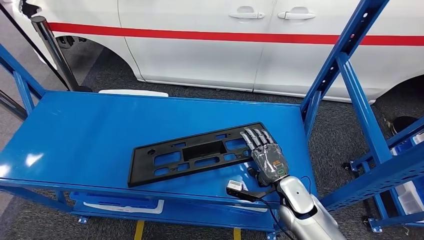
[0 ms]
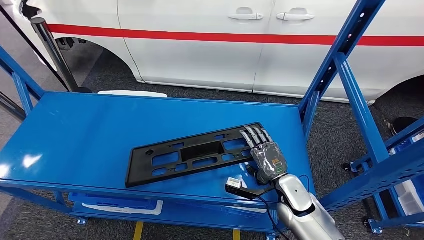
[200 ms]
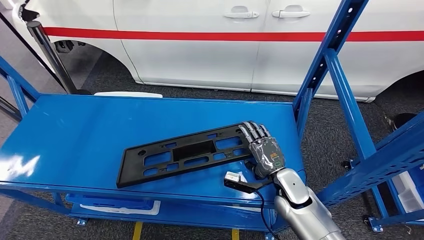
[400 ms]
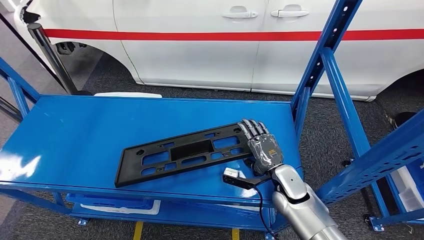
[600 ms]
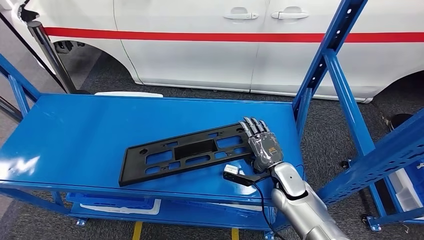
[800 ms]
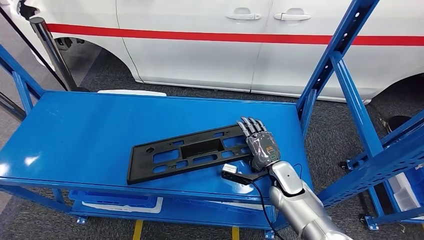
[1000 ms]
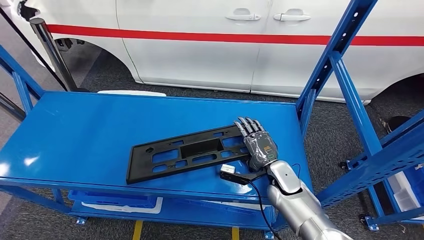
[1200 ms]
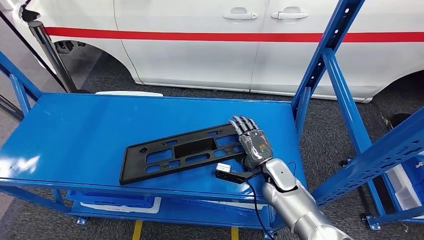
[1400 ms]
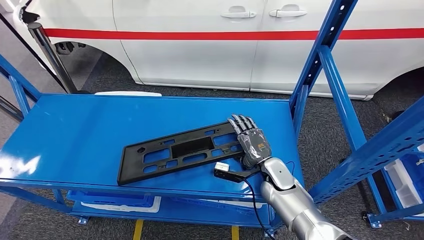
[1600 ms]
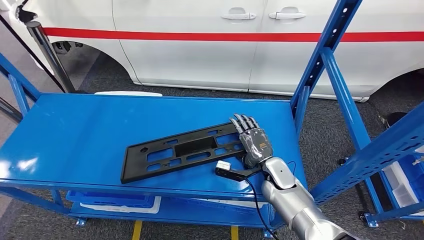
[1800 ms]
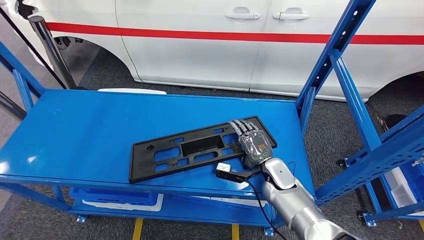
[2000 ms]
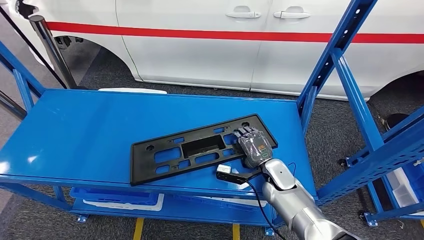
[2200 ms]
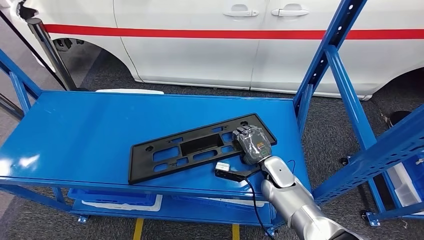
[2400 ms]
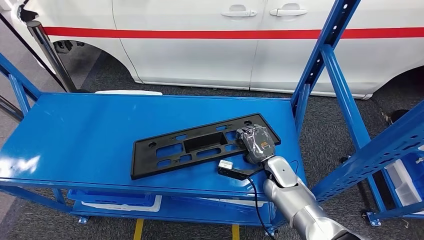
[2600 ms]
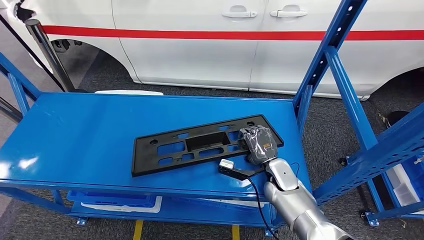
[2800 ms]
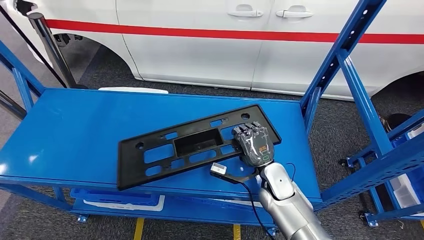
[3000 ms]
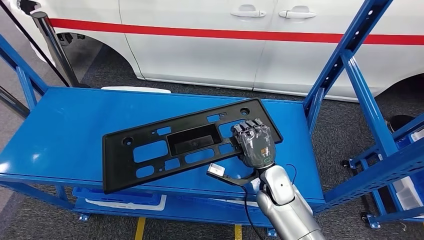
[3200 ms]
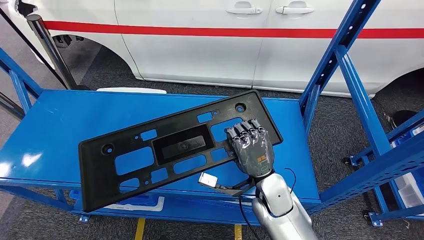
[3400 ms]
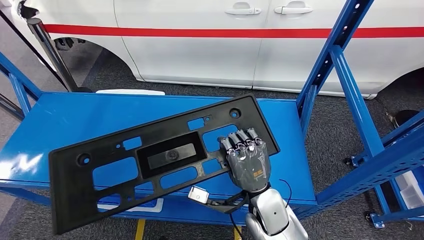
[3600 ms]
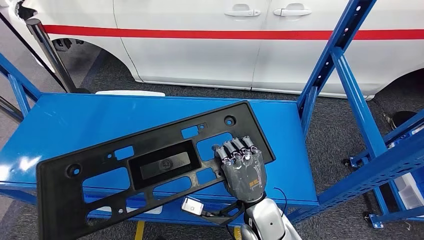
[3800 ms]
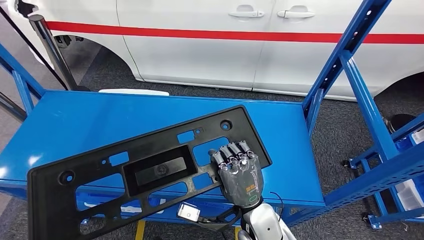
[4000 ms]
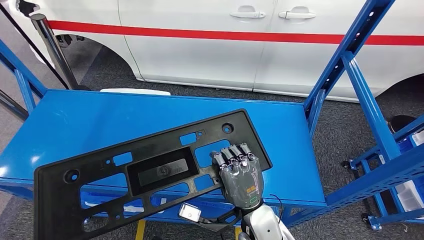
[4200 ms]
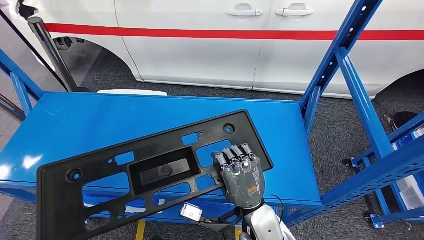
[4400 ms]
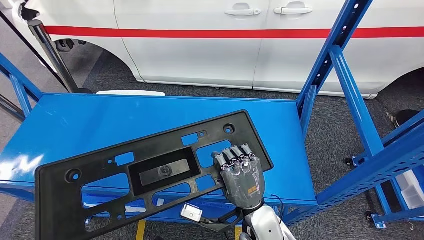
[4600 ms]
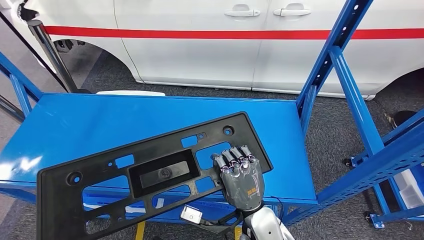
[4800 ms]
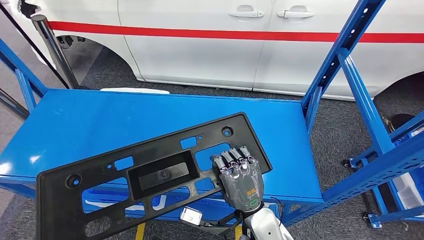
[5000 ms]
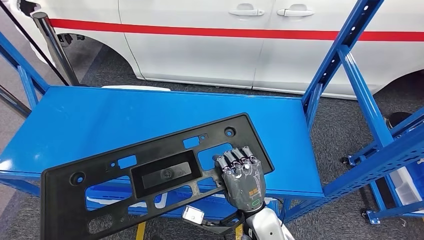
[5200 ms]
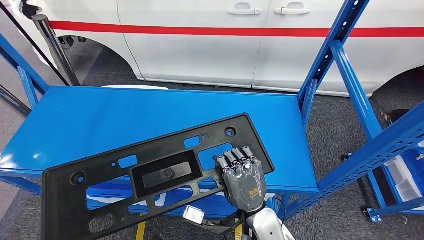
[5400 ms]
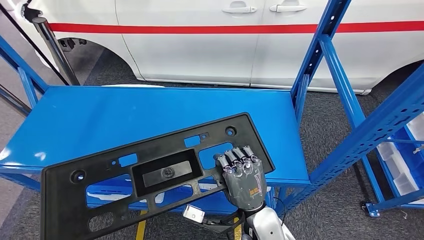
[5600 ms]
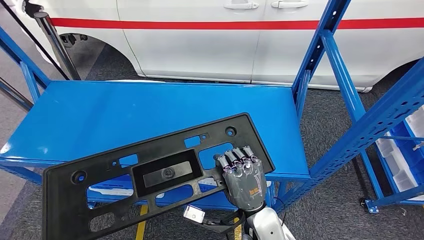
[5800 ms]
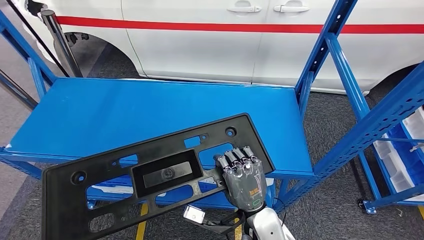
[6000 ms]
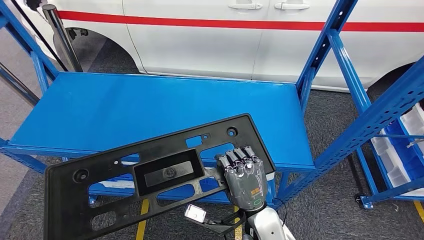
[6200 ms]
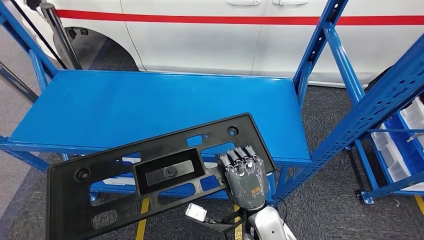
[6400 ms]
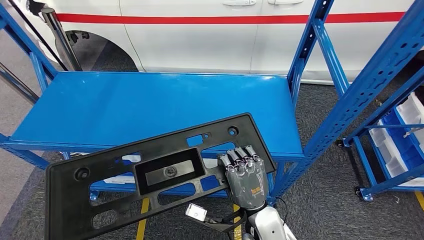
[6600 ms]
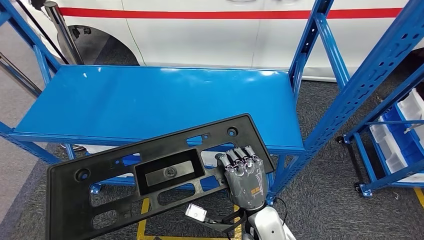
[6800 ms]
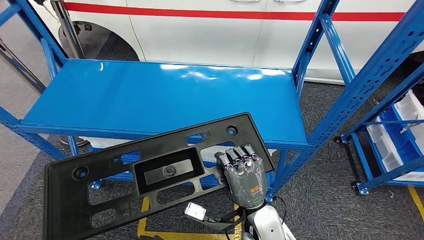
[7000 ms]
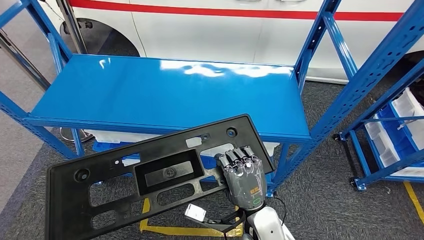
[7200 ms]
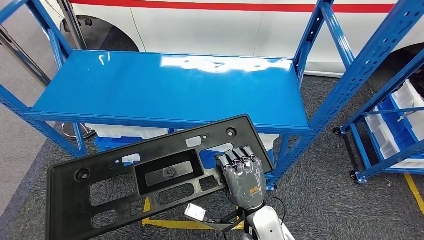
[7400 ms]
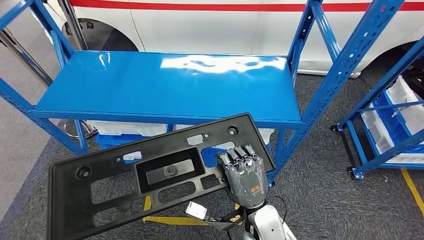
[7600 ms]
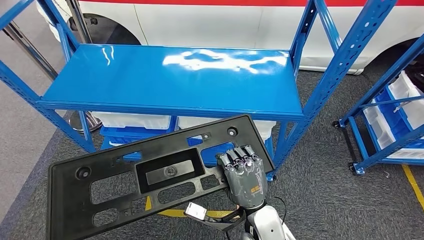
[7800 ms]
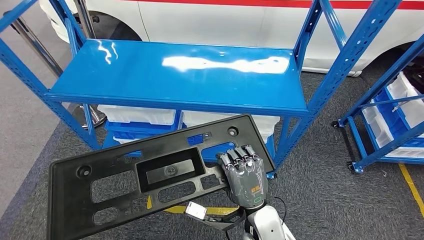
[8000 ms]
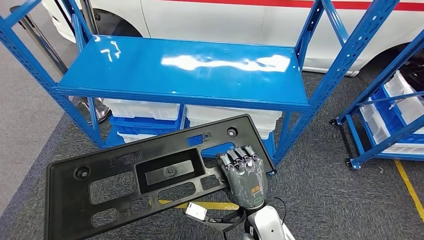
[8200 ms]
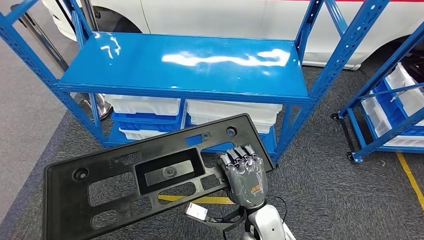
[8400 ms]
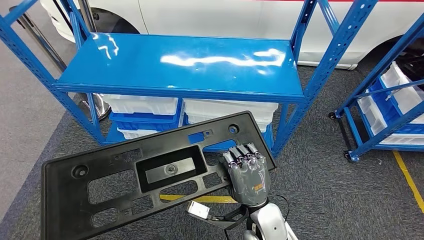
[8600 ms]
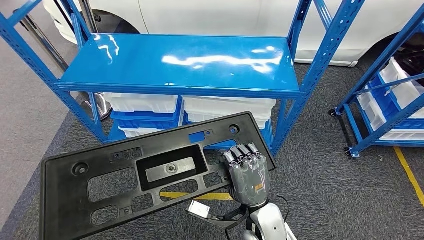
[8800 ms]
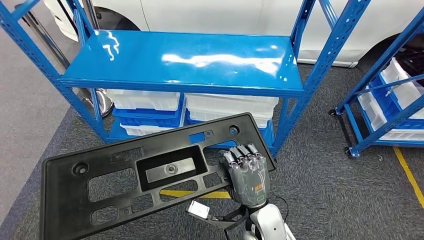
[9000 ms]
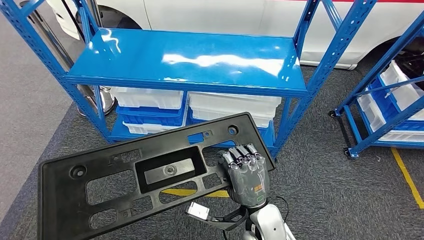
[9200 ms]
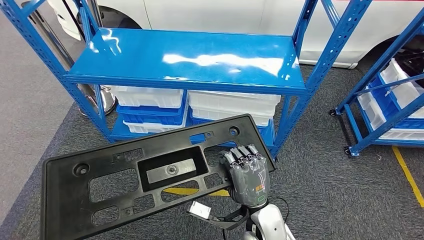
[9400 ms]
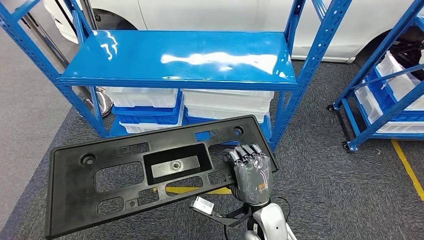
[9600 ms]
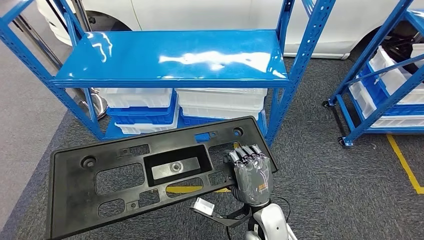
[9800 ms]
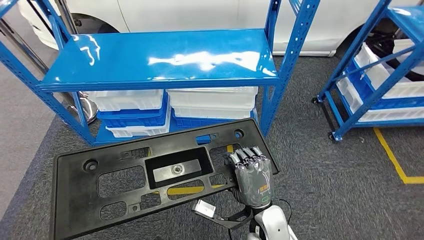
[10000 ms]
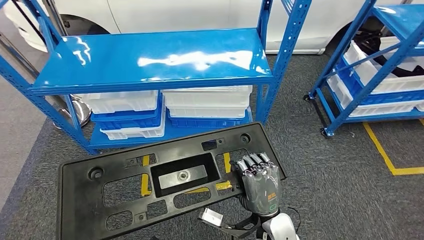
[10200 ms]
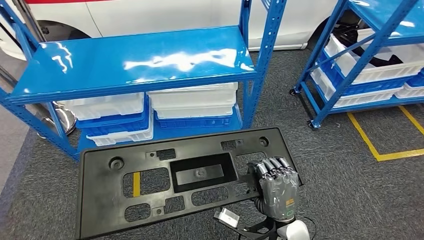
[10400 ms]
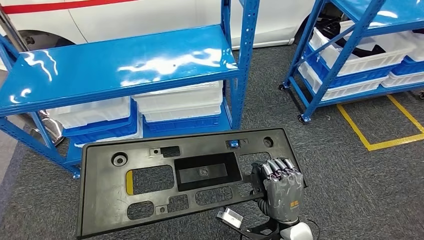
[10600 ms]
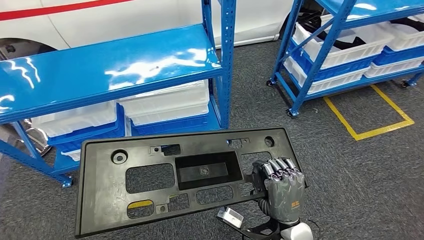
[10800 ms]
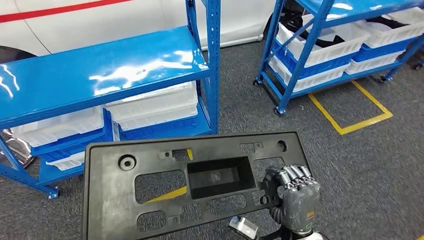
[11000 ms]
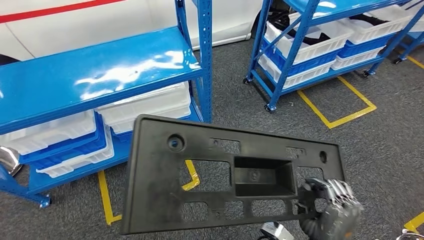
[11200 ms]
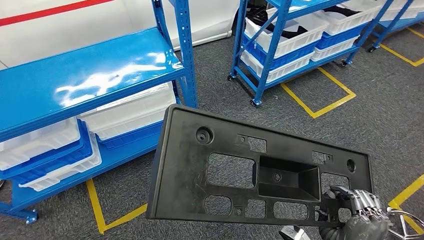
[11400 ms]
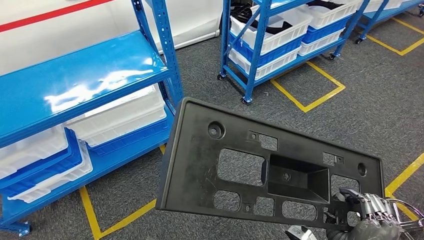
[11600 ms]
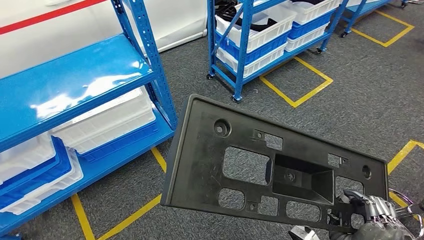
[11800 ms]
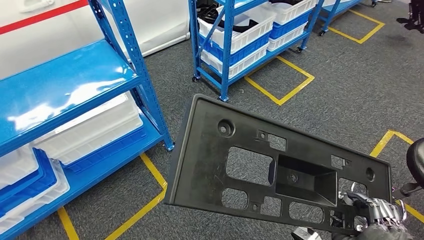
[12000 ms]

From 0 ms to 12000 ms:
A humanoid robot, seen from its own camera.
Step, from 0 ms to 5400 ms: Pick up the large material from the shelf.

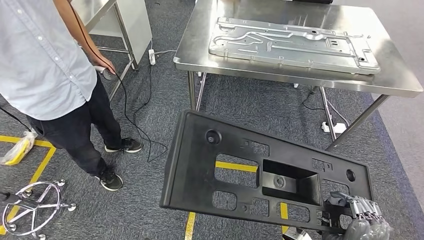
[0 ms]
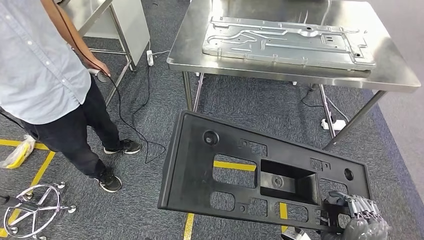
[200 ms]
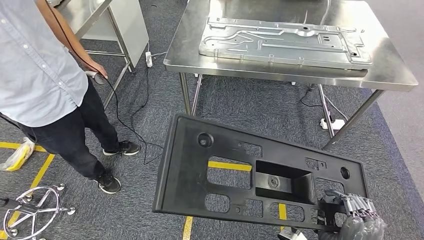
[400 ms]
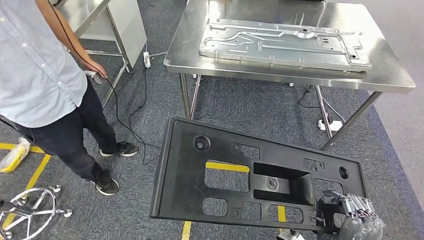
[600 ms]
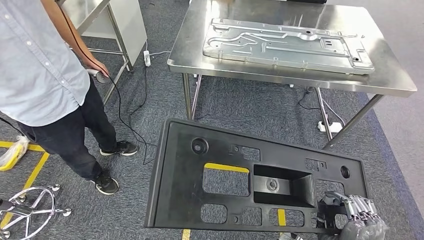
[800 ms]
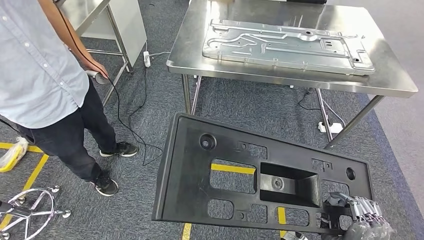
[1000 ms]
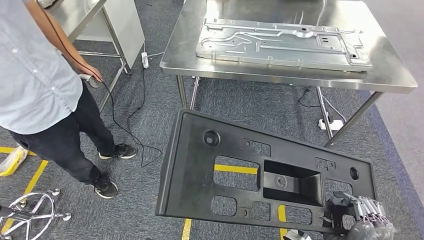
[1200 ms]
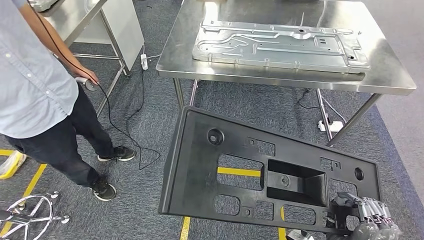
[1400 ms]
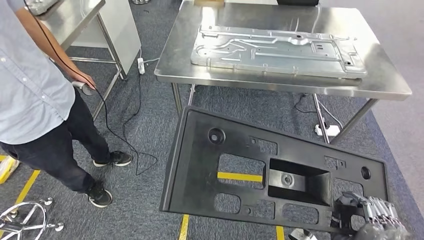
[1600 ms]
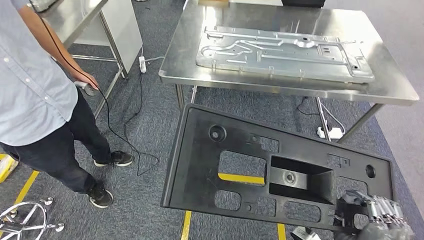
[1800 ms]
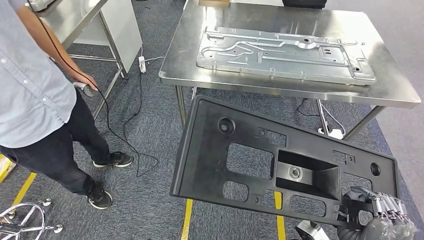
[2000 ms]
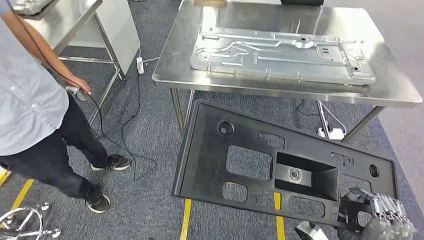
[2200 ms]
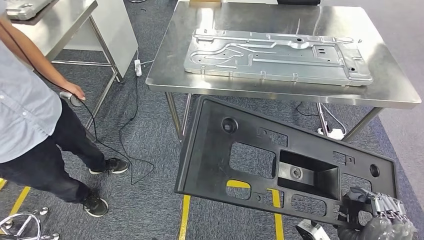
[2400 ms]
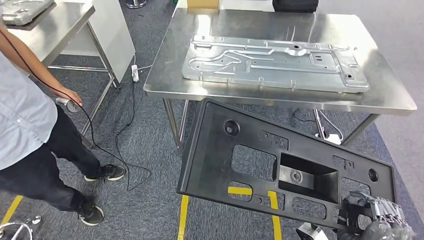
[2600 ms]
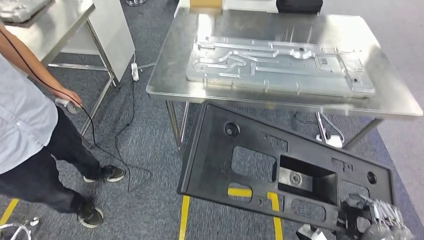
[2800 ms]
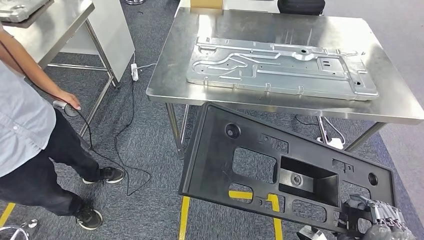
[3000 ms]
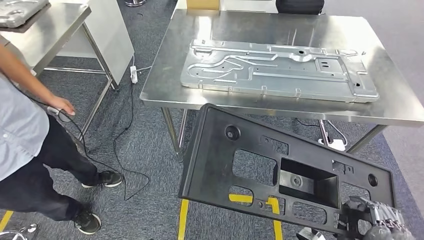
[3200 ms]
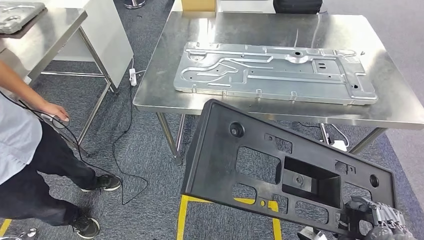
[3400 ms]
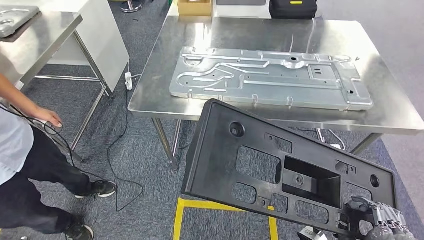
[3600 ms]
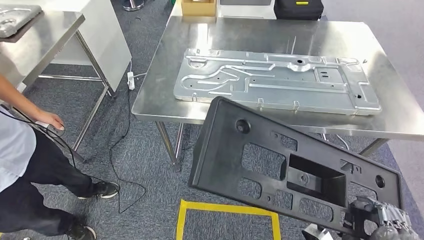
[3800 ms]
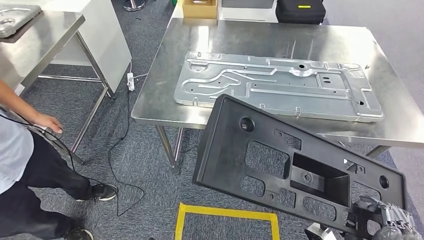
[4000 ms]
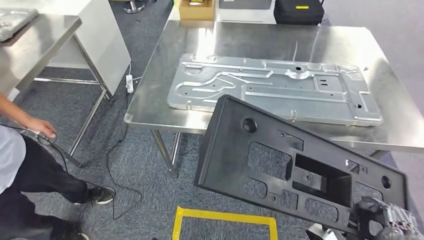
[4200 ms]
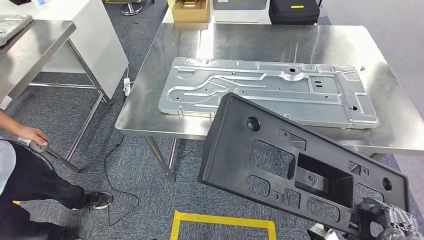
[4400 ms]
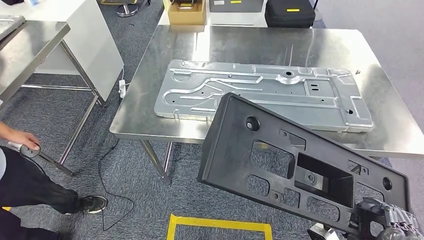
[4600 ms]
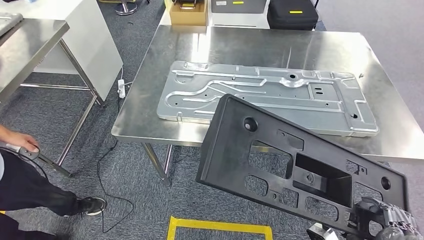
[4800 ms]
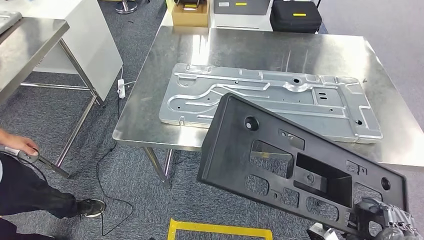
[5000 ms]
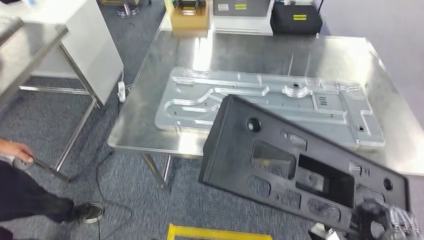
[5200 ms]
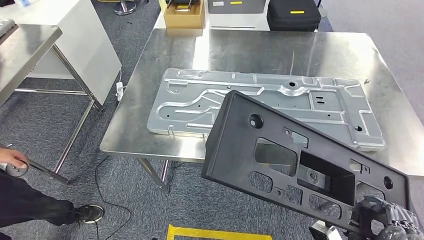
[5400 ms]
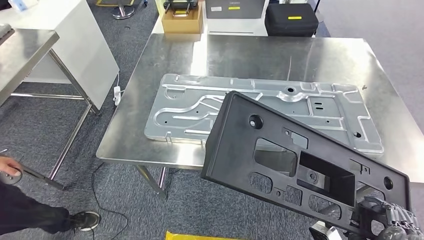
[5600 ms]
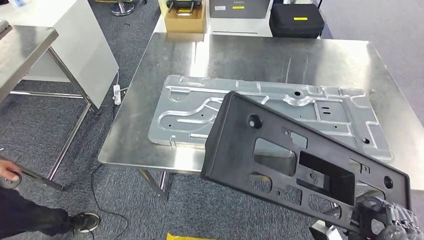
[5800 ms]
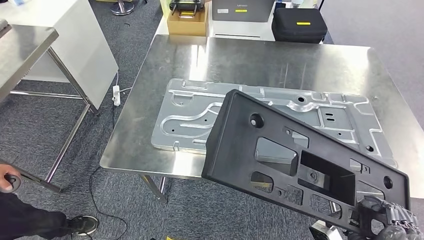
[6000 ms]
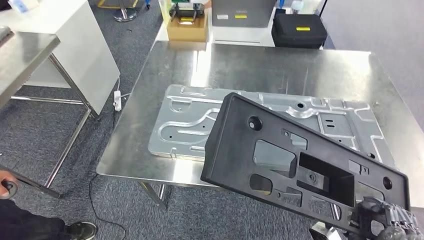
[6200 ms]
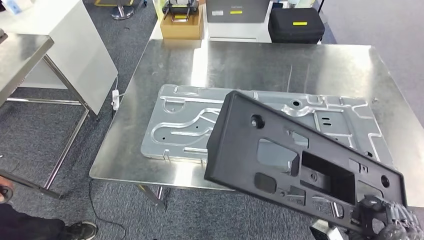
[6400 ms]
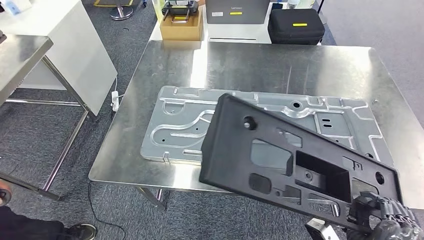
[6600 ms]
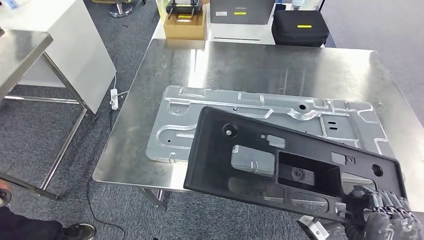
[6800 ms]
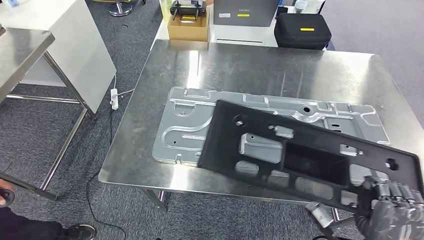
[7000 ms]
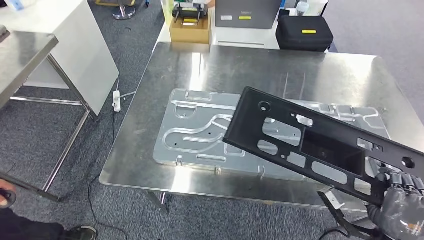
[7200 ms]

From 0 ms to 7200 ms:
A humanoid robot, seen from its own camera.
Step, from 0 ms to 4200 ms: Move the large material to the workbench.
